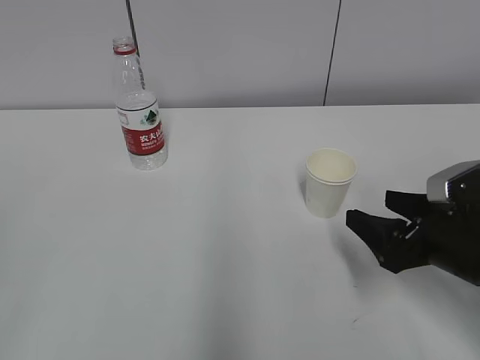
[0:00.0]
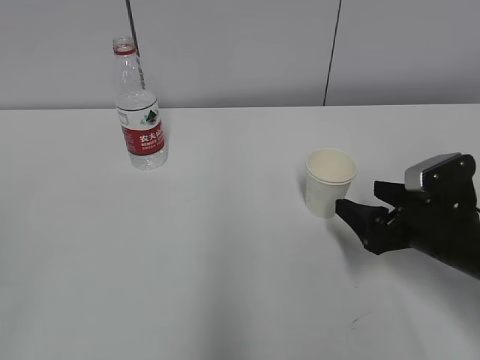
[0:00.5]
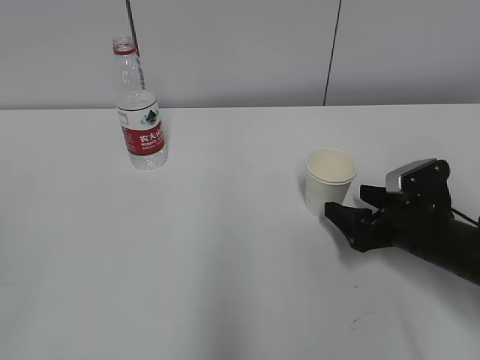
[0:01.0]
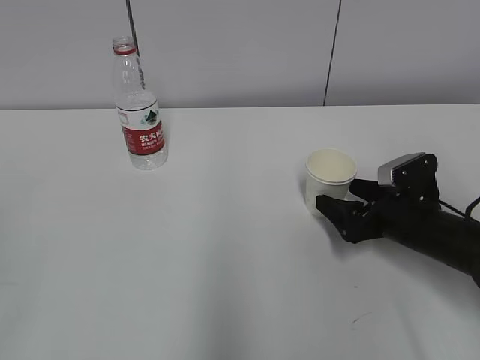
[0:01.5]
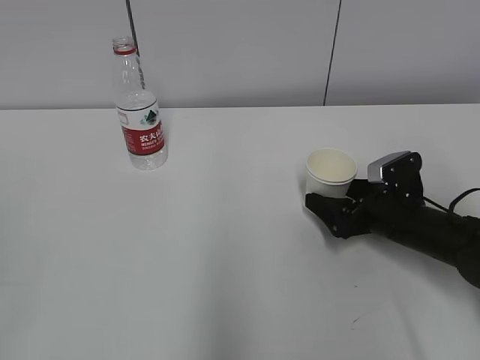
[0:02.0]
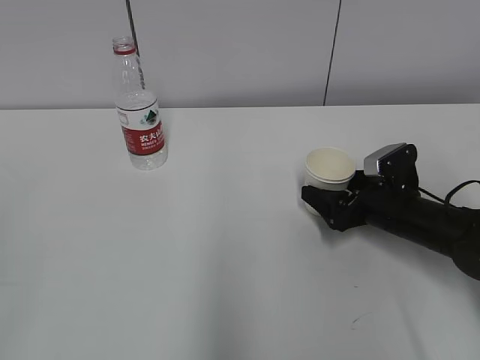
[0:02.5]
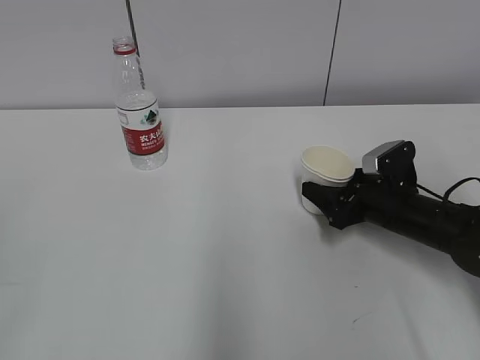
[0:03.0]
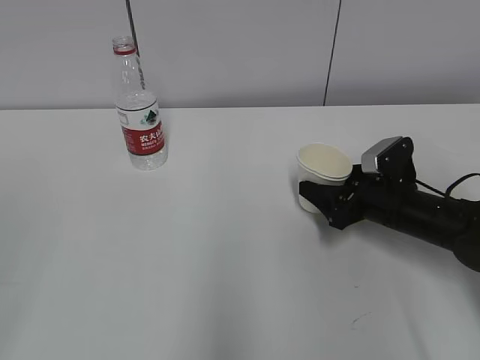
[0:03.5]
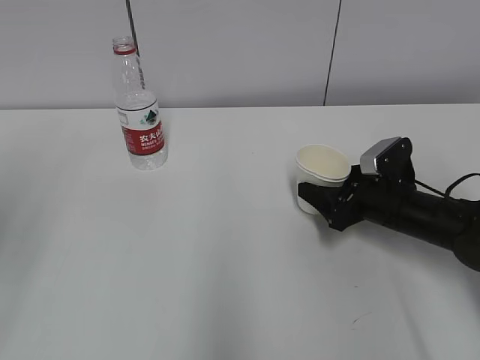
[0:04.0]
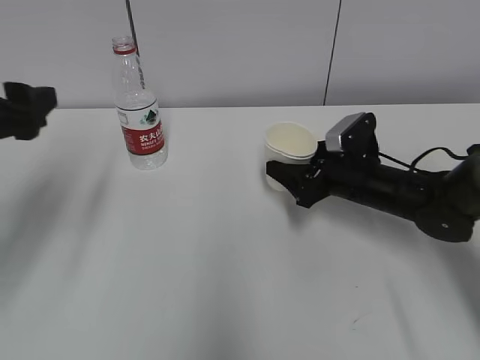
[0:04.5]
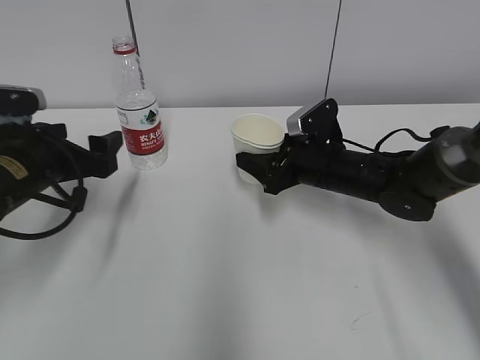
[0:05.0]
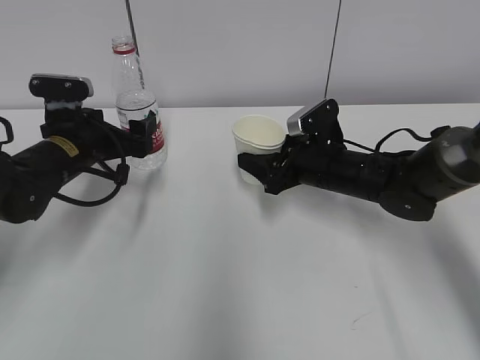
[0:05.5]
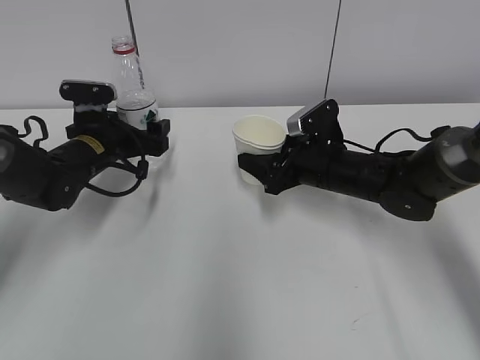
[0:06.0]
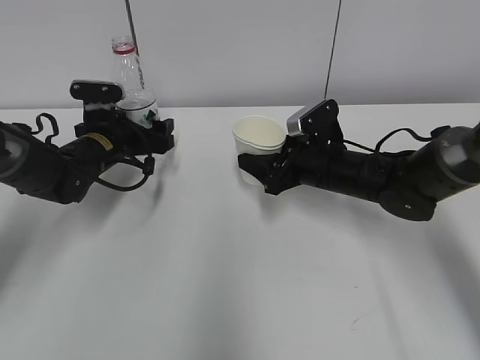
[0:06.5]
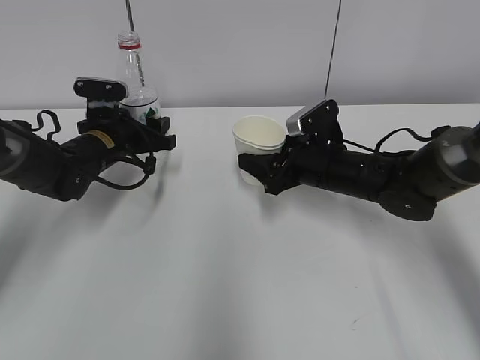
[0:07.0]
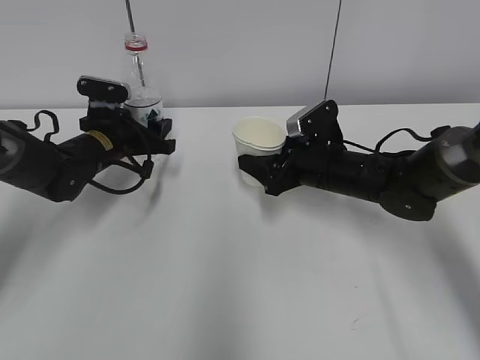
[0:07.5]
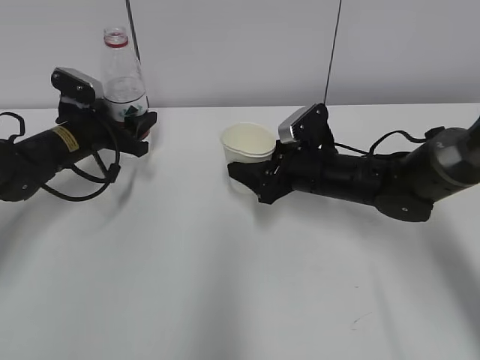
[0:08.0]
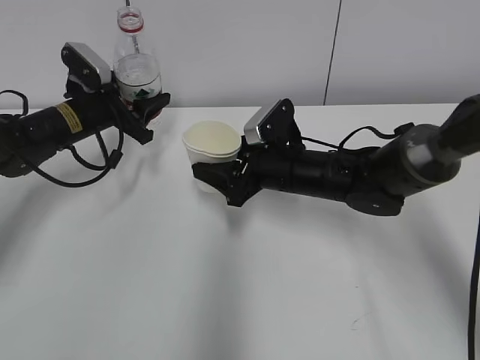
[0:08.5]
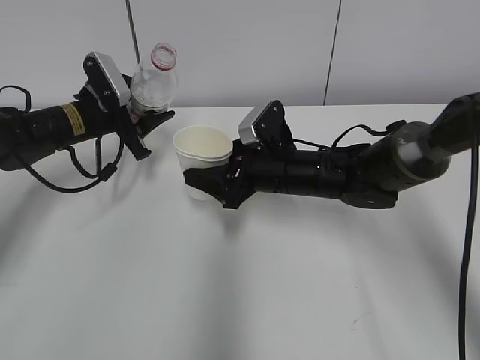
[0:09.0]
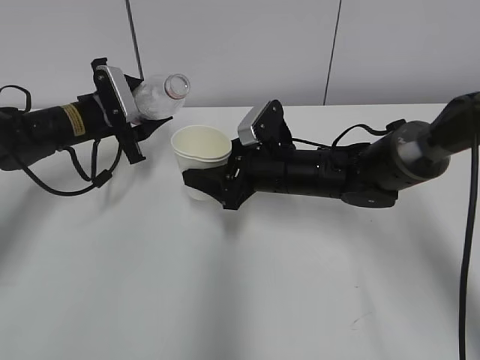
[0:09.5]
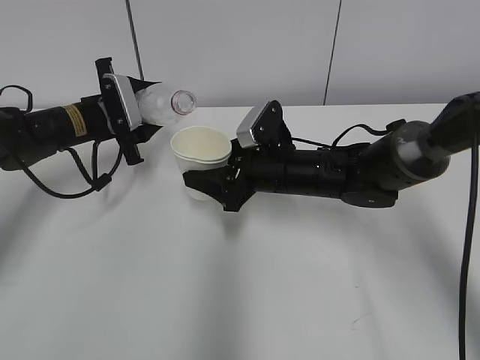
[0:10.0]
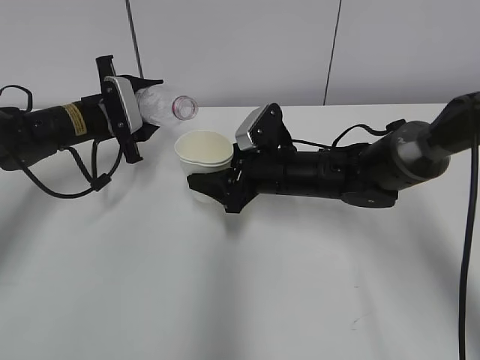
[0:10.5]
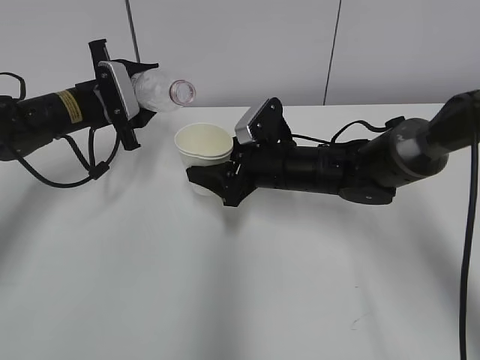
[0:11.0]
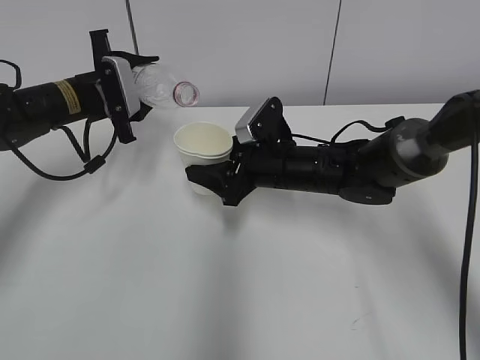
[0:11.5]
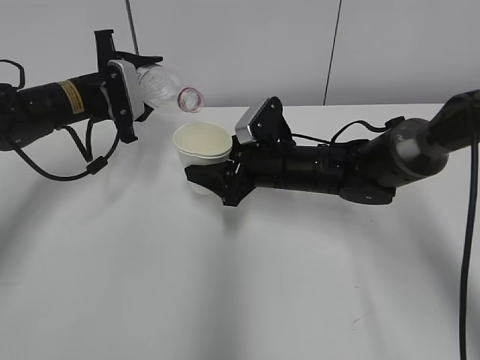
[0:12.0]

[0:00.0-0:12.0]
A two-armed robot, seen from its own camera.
Step, 0:01.5 to 0:05.0: Grab the water bottle with the left hand.
Step, 0:05.5 to 0:11.0: Lift the paper cup with the right hand.
0:00.0 to 0:02.0: The right gripper goes roughly 10 cm forward and downward.
0:02.0 to 0:04.0: The right gripper closes its fingers.
0:04.0 to 0:06.0: The left gripper heads forward, downward and to the right, covering approximately 35 cm, while the right gripper shifts about 10 cm to the left and forward.
0:06.0 to 0:08.0: The left gripper closes up.
0:08.0 to 0:10.0: The right gripper moves to the left, some 5 cm.
0:10.0 to 0:12.0: The grippers stay close to where they were, moving slightly.

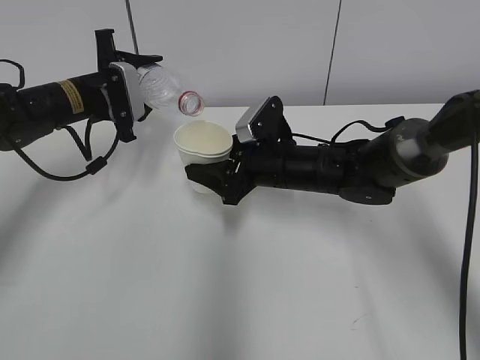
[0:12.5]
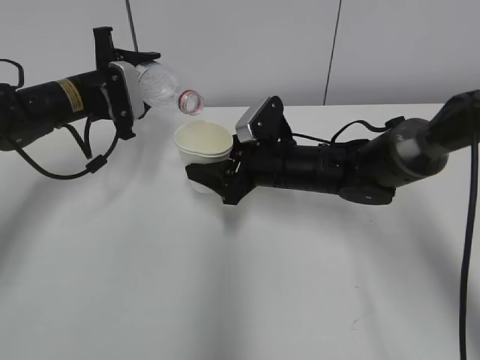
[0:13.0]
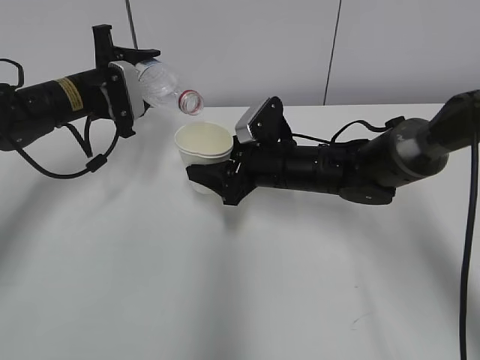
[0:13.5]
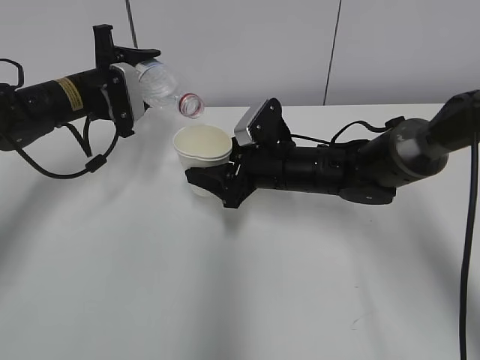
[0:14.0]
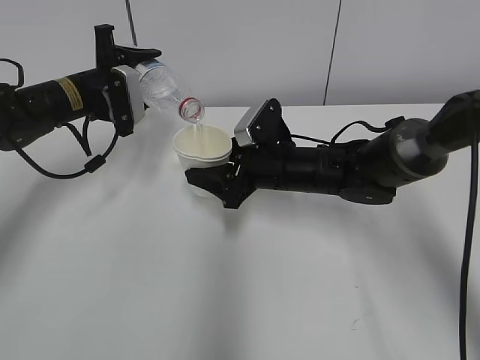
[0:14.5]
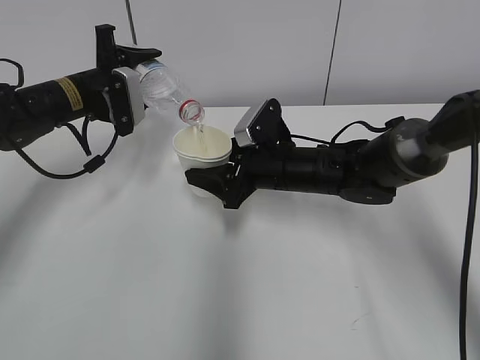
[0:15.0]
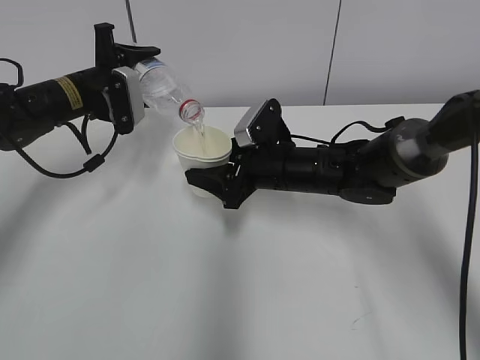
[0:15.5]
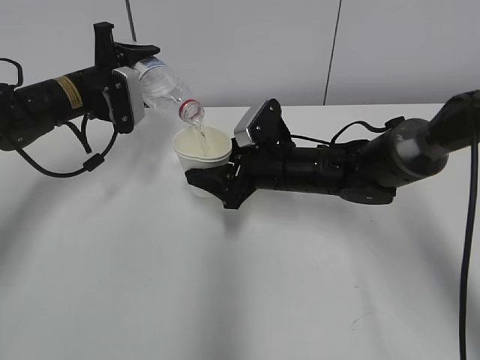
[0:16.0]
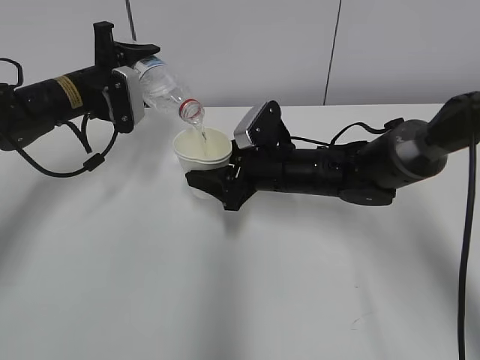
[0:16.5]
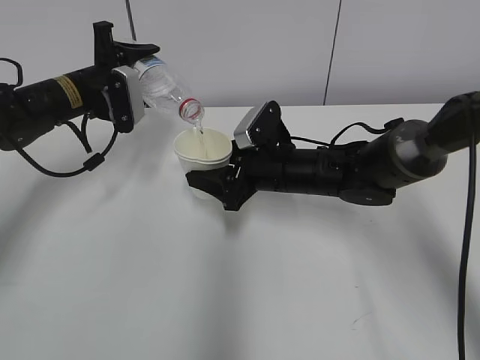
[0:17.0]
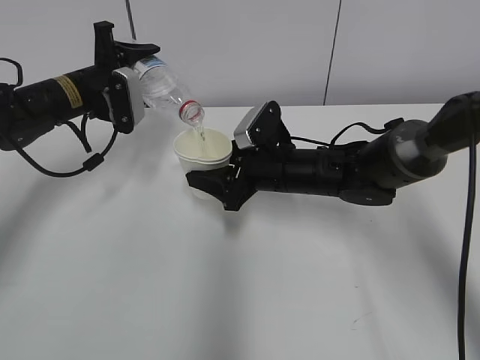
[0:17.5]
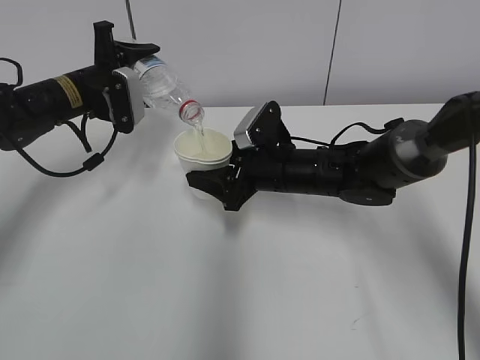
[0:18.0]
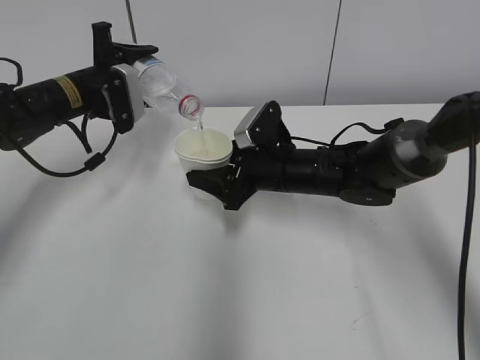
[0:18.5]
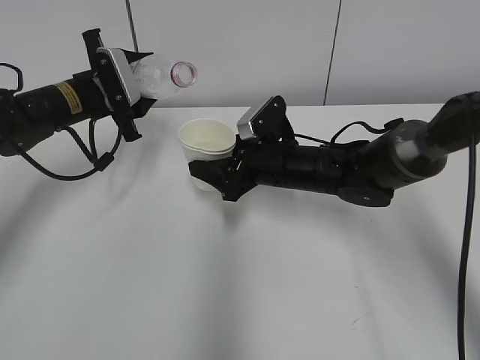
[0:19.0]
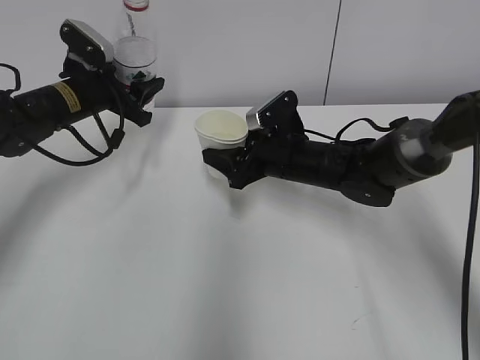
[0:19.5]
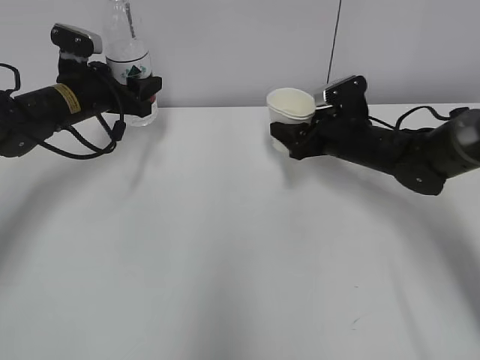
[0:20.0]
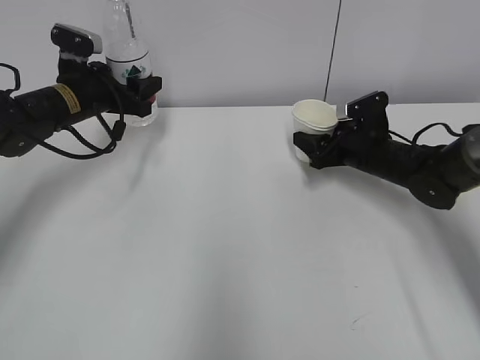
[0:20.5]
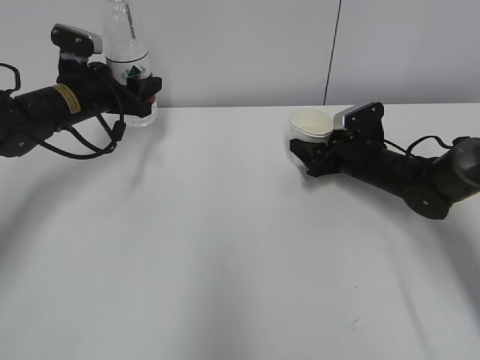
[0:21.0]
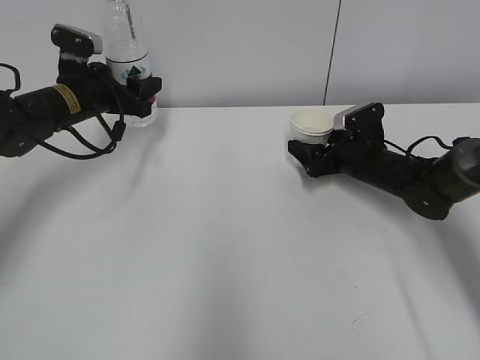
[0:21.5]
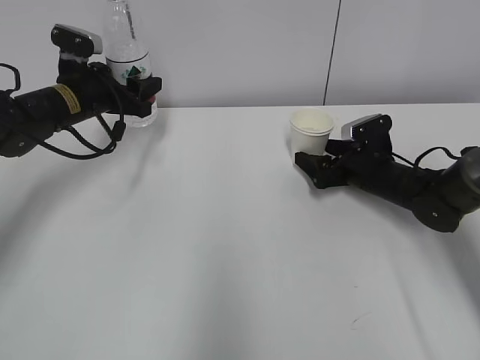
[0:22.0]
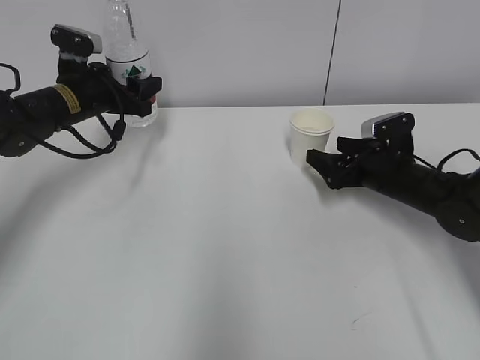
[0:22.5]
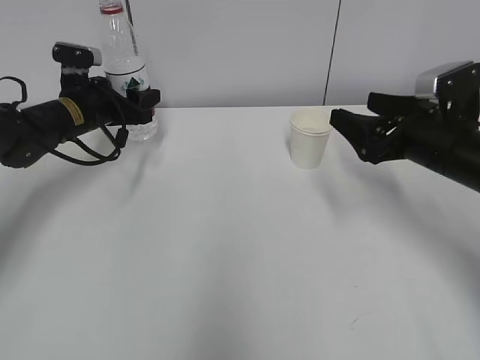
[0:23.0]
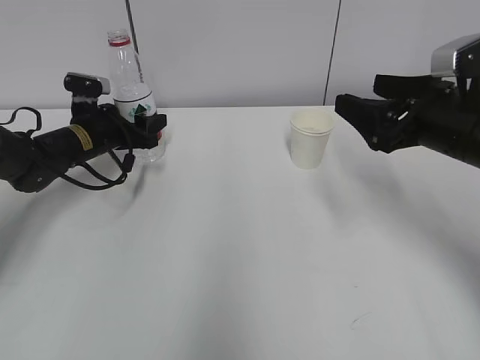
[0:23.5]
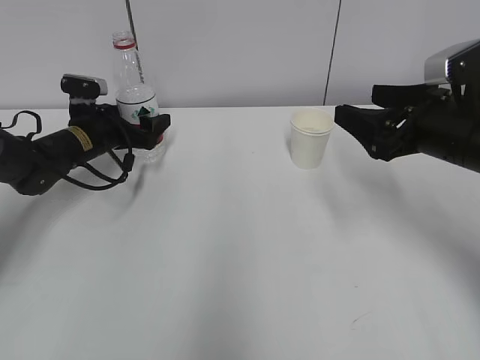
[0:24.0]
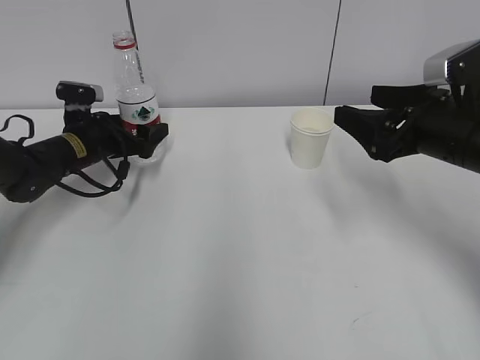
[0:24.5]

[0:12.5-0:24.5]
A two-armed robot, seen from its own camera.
Step, 0:12.5 to 0:14.5: Fill water with the right hand.
Step, 0:12.5 to 0:14.5: Pour water with the left hand.
Step, 0:15.0 to 0:15.5: Collect water with the left hand.
Step, 0:16.0 to 0:16.5: Place the paper cup with the right hand.
Step, 0:17.0 to 0:19.0: Place the water bottle with the left hand.
0:12.5 to 0:14.5: The grippers make only small movements.
0:14.5 to 0:18.5: Both grippers stay put.
0:18.5 to 0:20.5: The right gripper travels to the right by some 15 cm.
0:20.5 to 0:22.5: The right gripper opens up.
0:22.5 to 0:24.5: The left gripper is displaced downward by some 5 cm, and opens up. The right gripper is displaced upward and backward by some 15 cm.

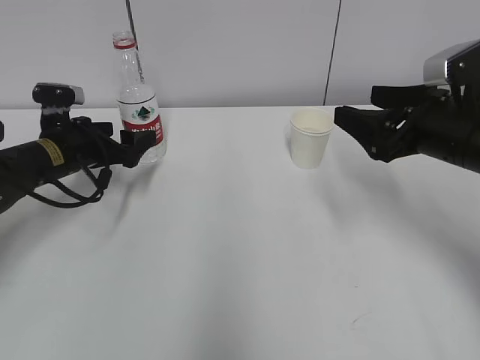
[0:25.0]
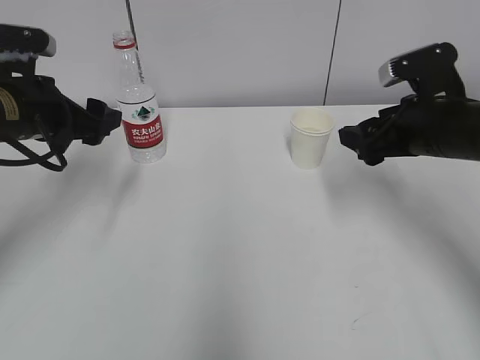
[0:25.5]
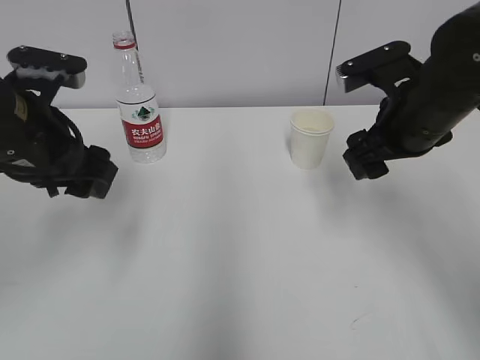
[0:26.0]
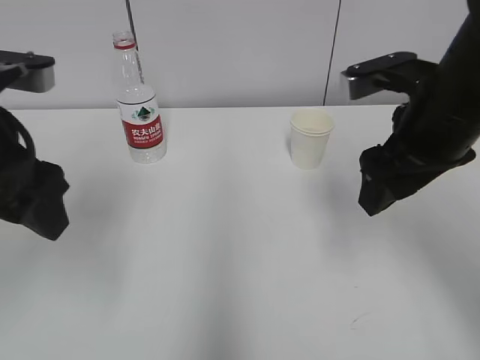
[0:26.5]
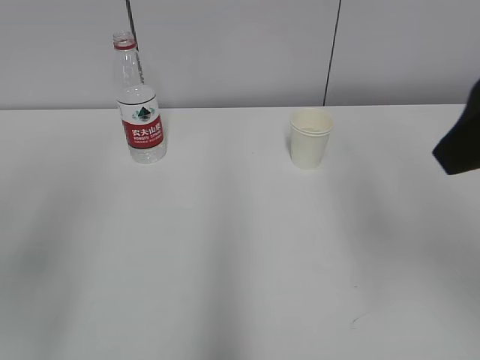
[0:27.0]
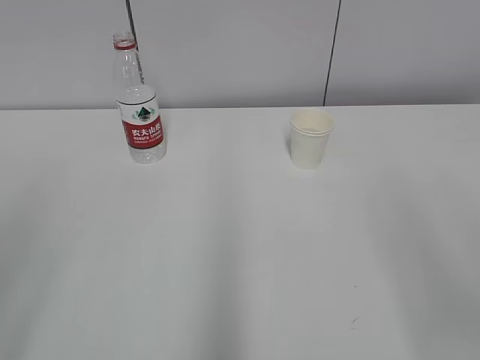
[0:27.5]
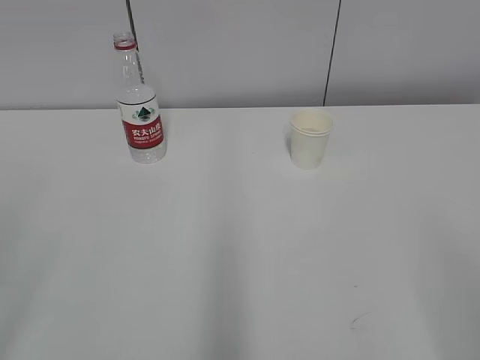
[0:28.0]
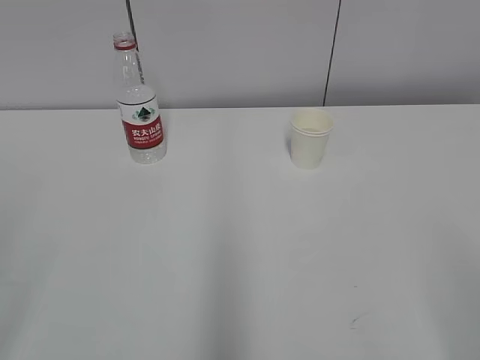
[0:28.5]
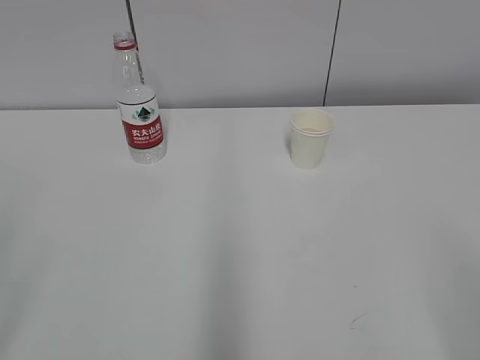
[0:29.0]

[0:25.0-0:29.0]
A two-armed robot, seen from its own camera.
0:25.0 to 0:27.0: The left gripper travels backward and upward by about 35 cm. The right gripper travels upward and backward by approximately 20 cm.
0:27.0 to 0:29.0: The right gripper travels backward and downward by roughly 20 cm.
